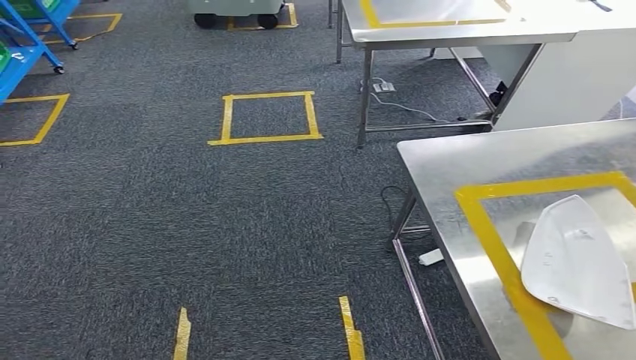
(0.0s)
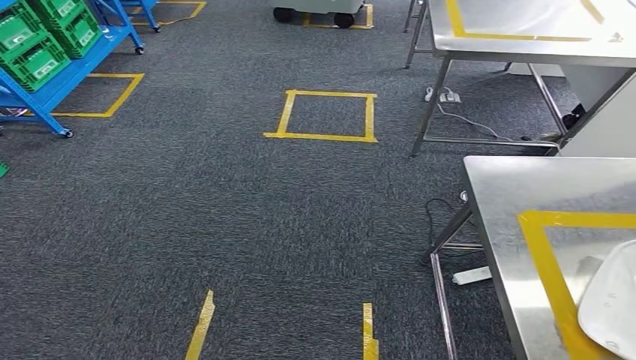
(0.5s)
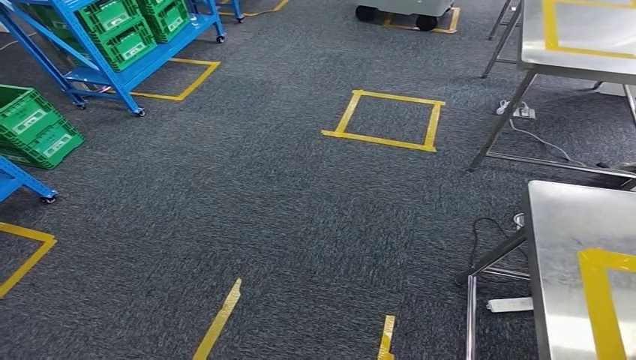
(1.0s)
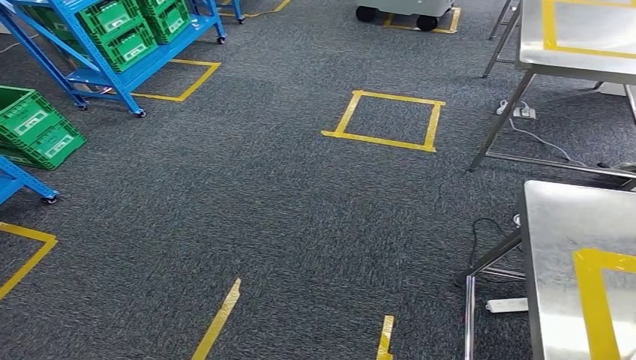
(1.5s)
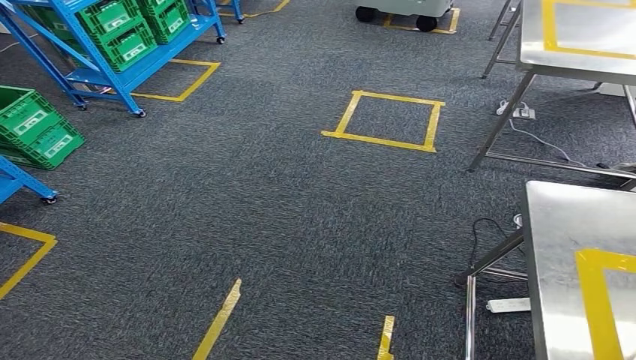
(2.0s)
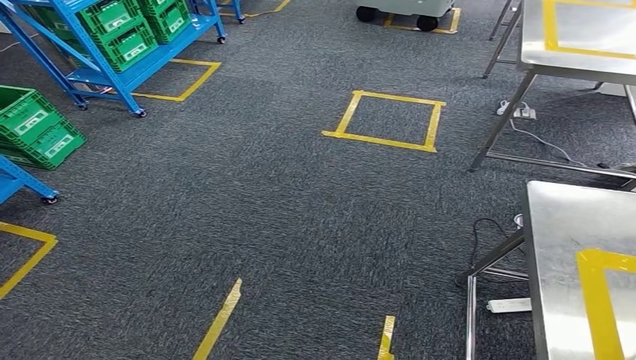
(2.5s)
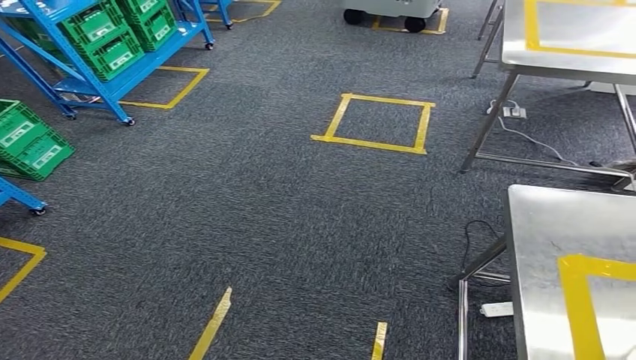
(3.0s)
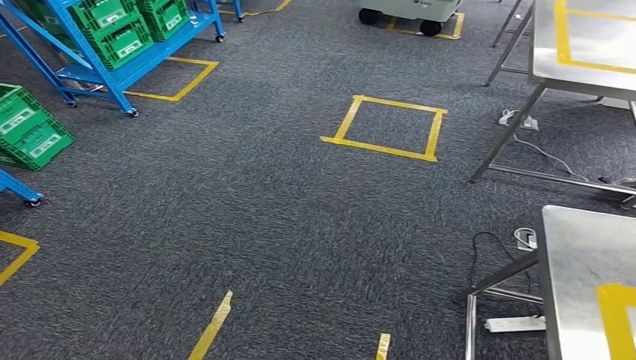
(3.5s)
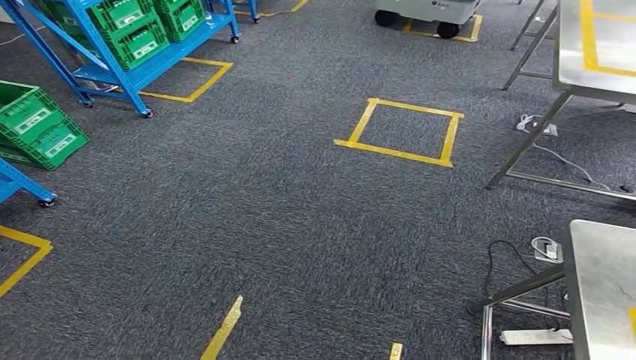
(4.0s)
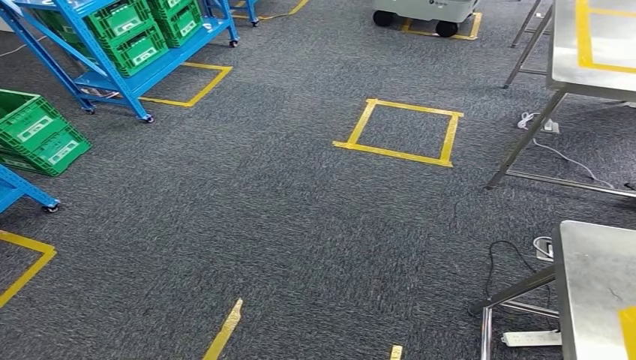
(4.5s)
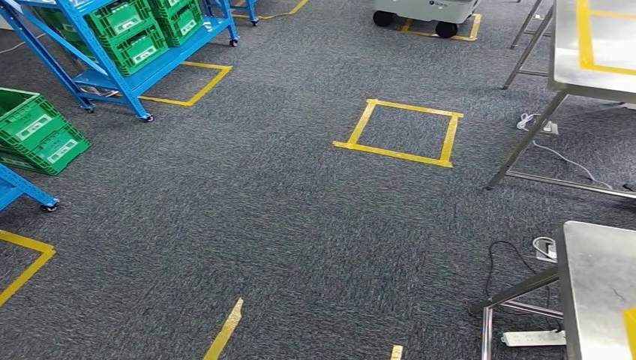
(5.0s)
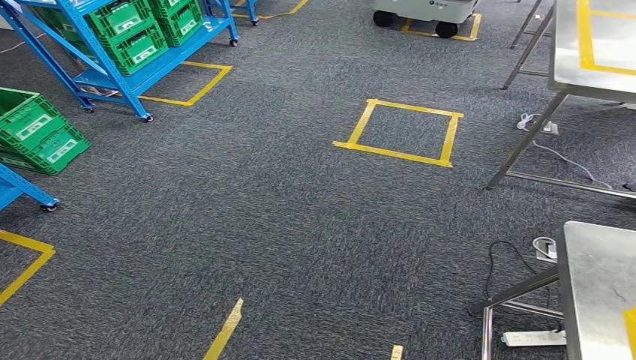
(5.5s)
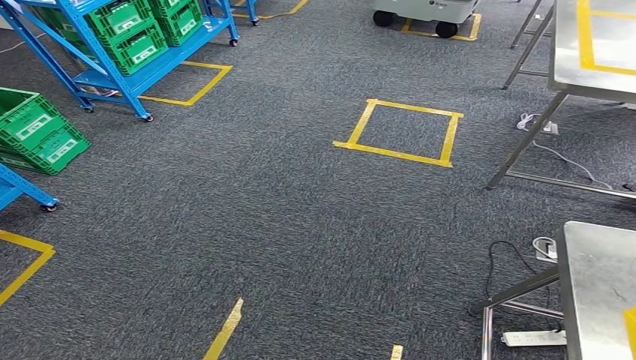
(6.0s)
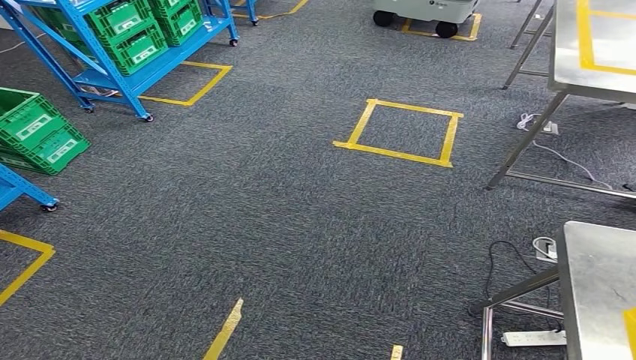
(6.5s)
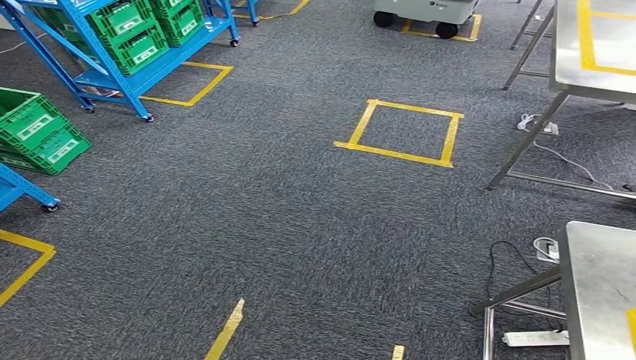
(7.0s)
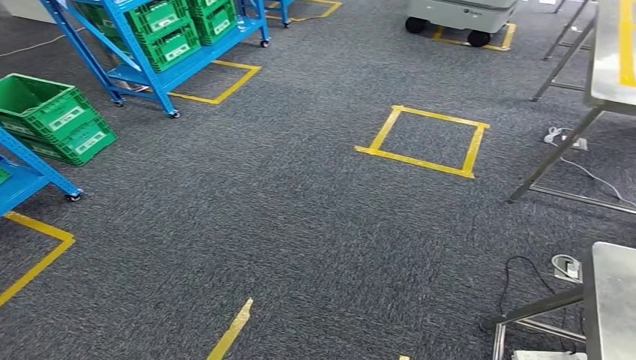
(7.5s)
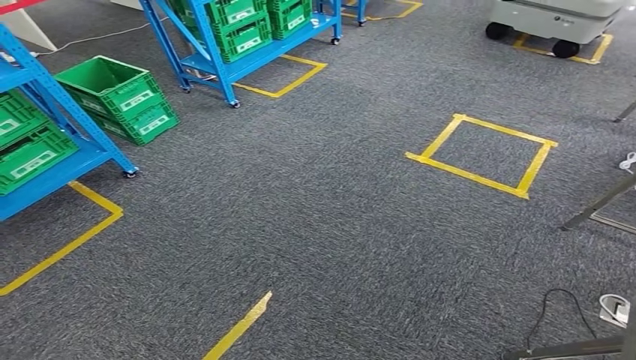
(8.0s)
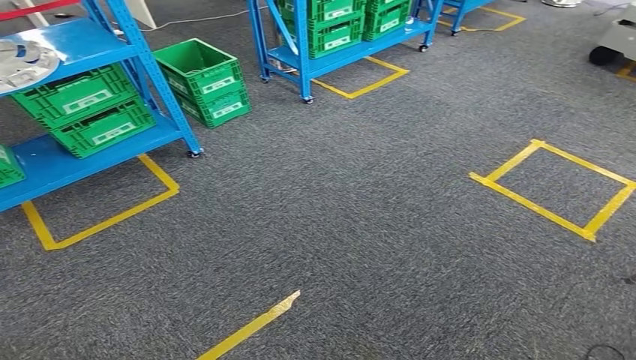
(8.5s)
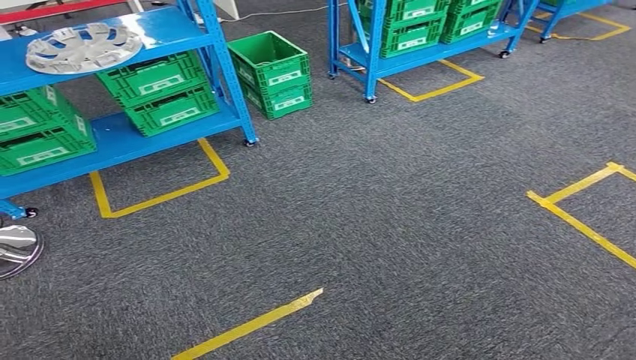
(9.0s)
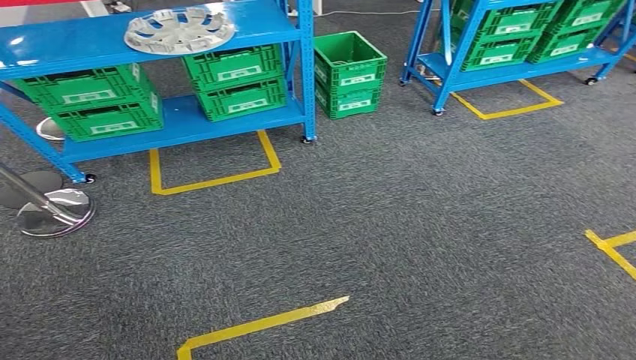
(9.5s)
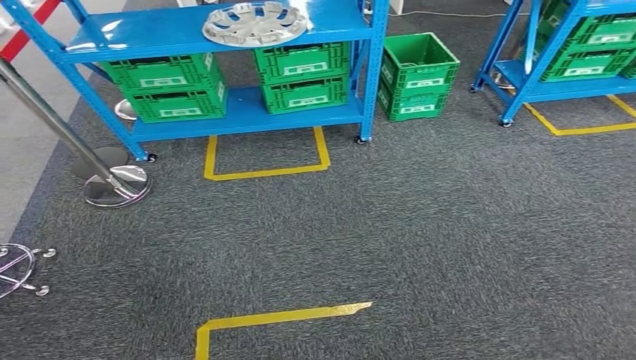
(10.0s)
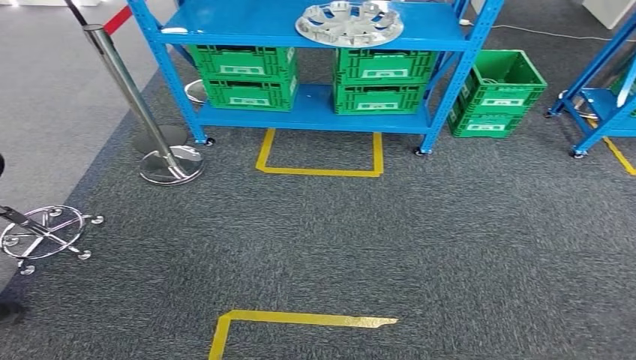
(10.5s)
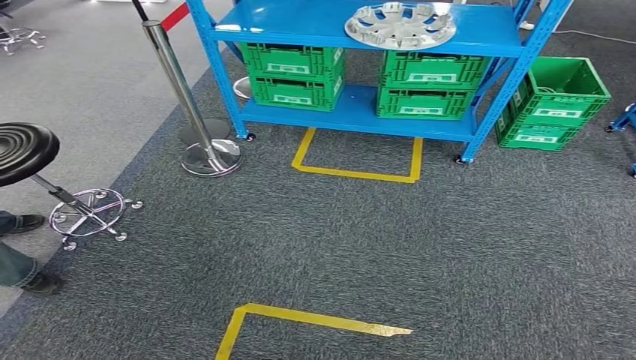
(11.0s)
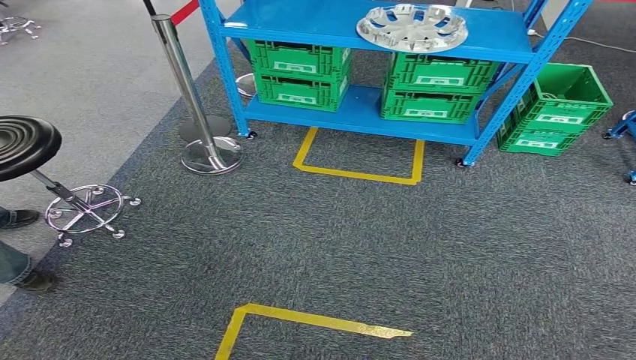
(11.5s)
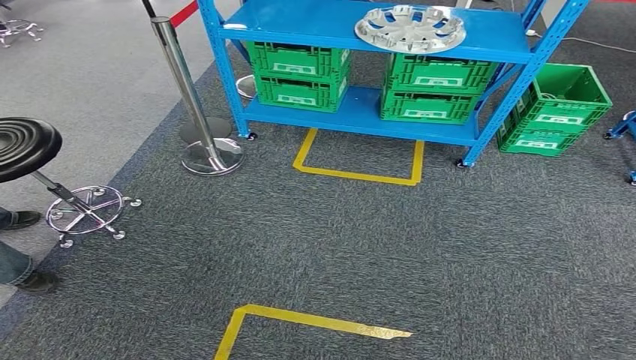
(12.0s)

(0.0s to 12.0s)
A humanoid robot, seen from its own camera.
4.0s - 6.0s: The two hands keep their place.

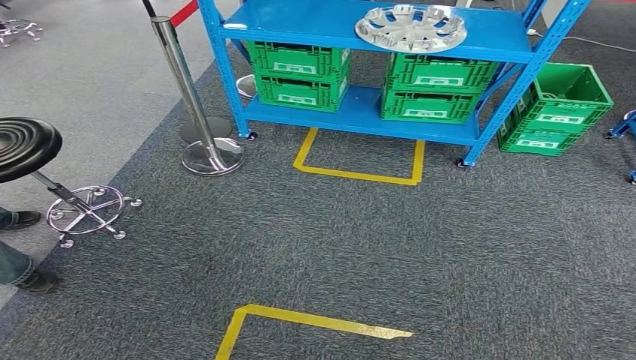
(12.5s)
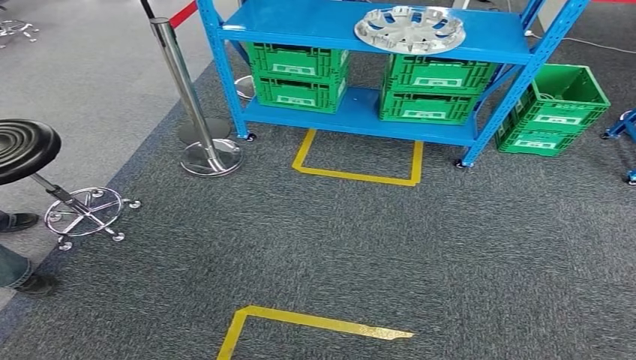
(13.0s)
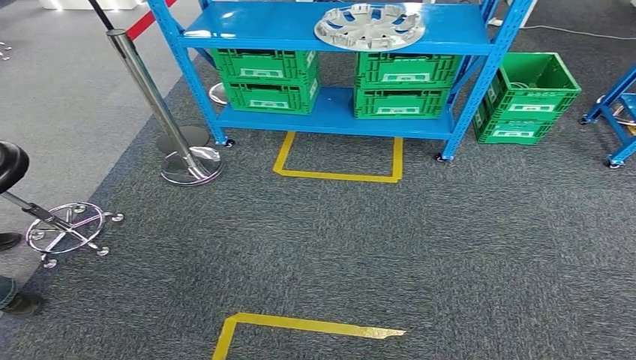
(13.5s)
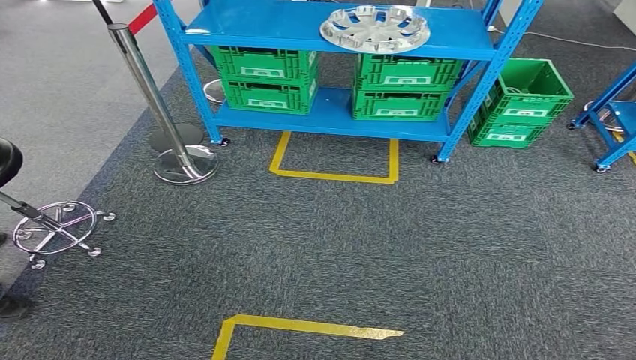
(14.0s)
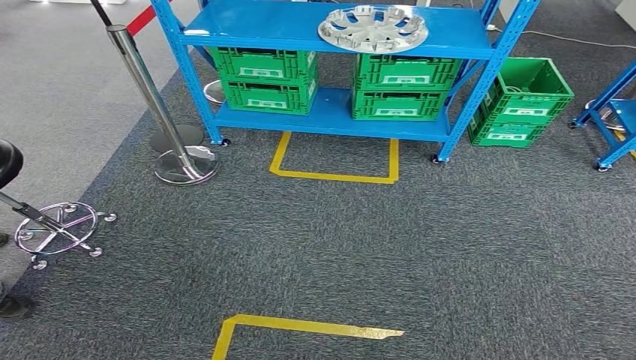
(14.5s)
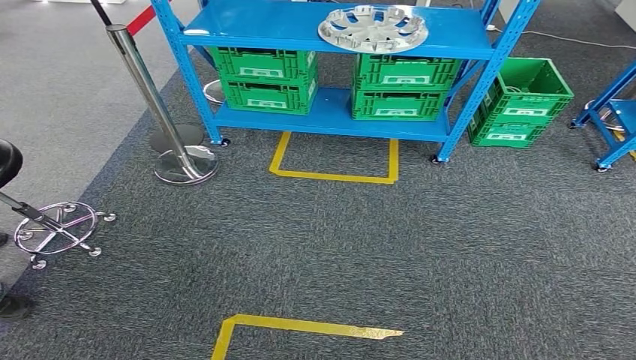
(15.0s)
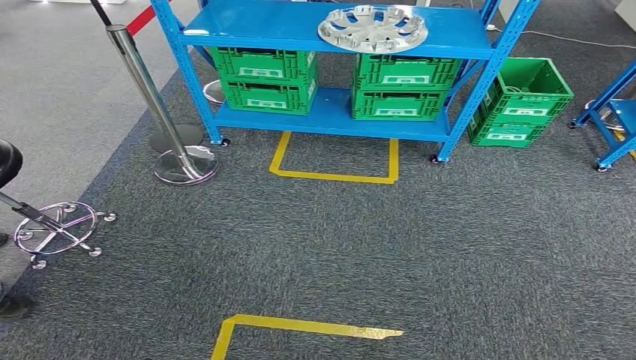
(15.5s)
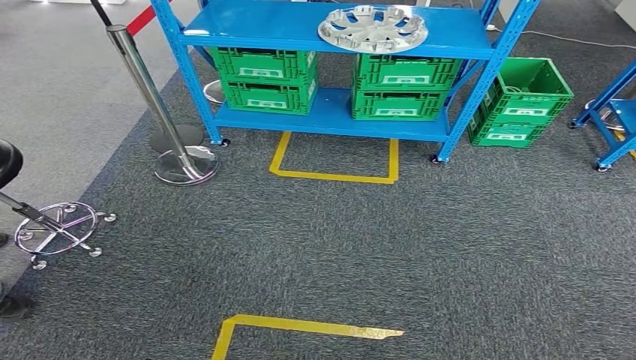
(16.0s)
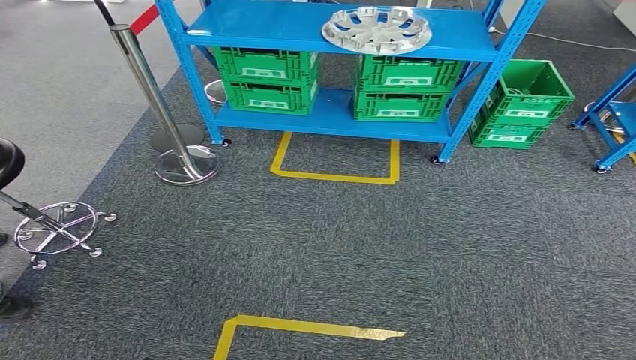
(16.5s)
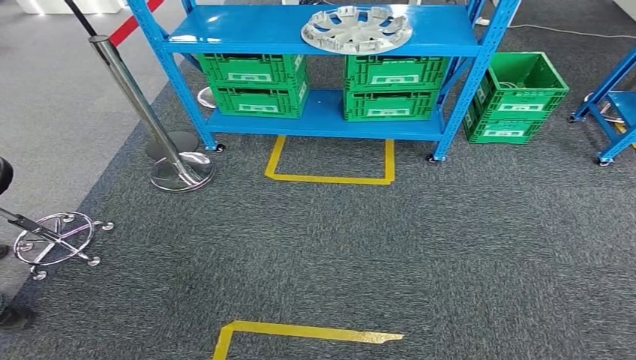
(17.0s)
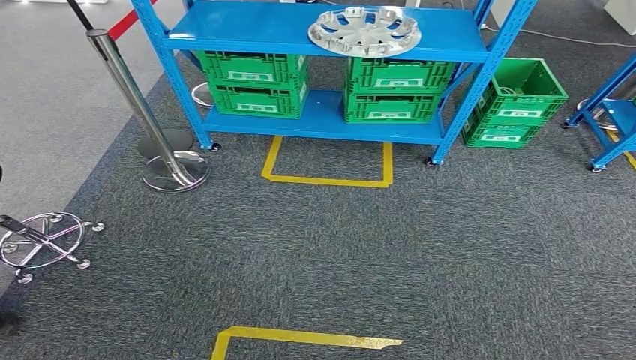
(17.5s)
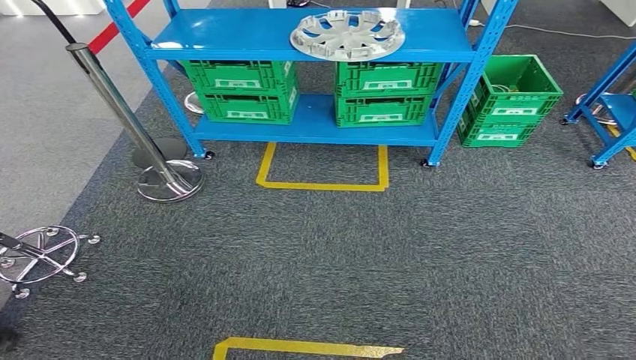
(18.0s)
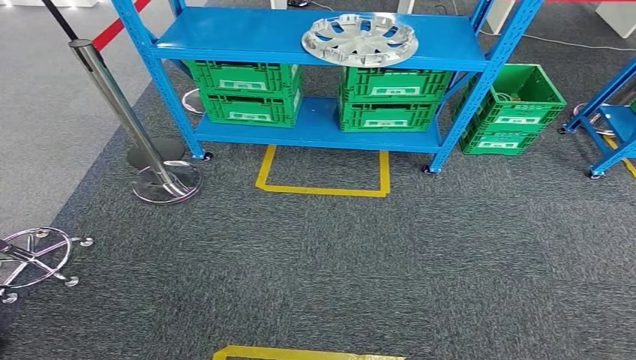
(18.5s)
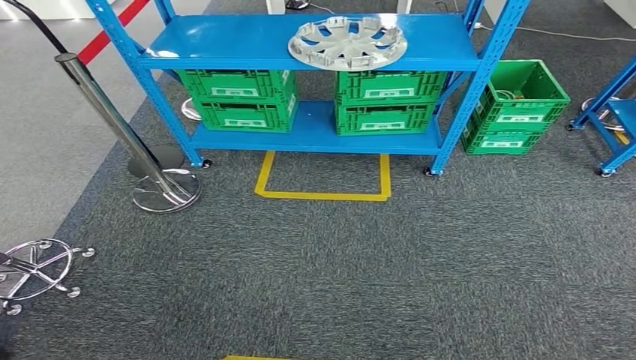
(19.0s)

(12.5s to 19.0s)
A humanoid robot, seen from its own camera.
Step, 12.5s - 19.0s: Return to the initial position at the workbench.
14.5s - 17.0s: The two hands keep their place.
